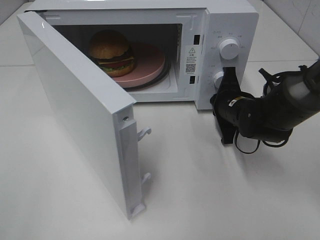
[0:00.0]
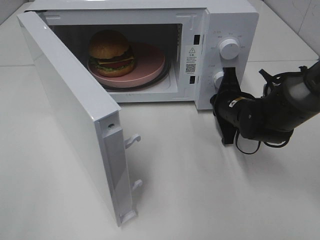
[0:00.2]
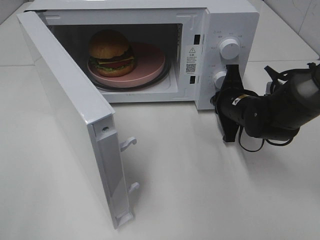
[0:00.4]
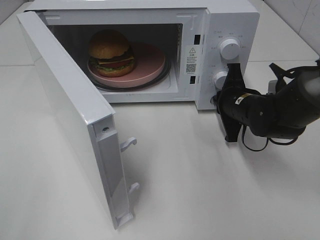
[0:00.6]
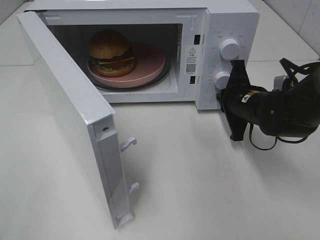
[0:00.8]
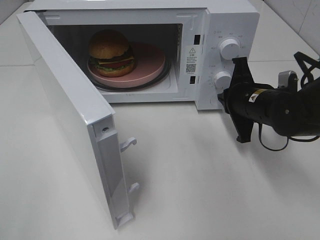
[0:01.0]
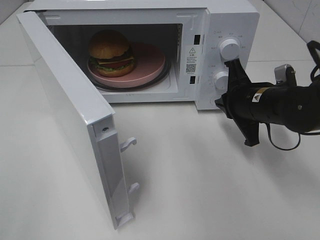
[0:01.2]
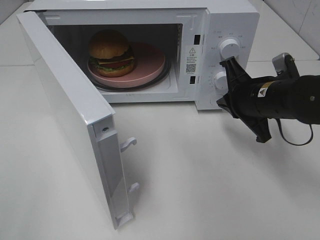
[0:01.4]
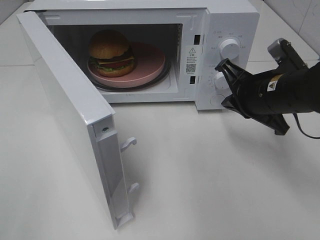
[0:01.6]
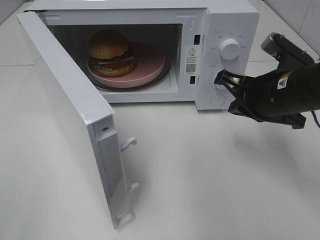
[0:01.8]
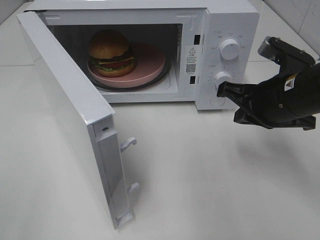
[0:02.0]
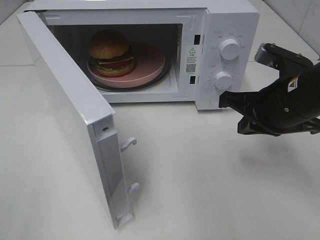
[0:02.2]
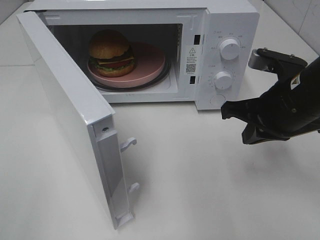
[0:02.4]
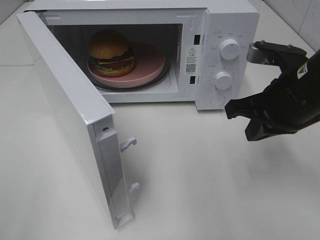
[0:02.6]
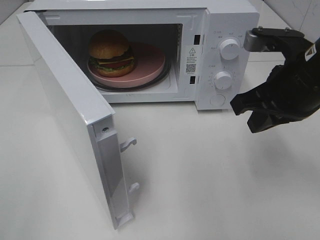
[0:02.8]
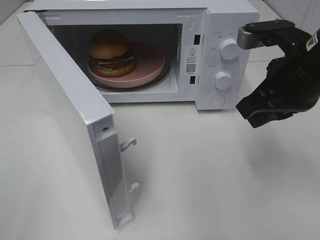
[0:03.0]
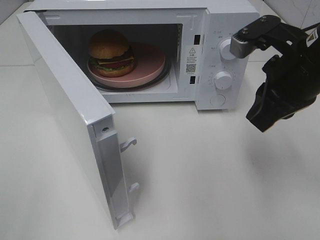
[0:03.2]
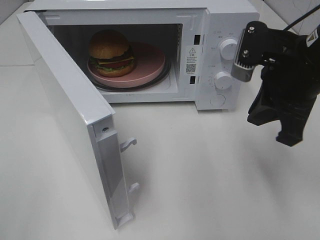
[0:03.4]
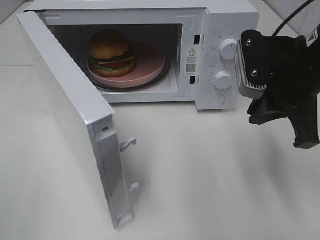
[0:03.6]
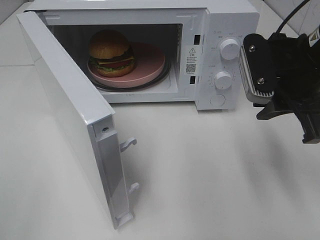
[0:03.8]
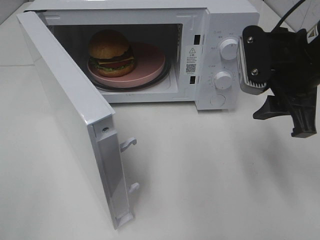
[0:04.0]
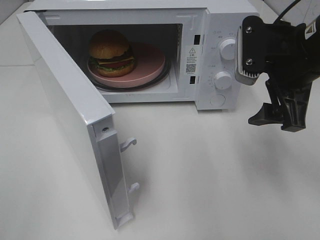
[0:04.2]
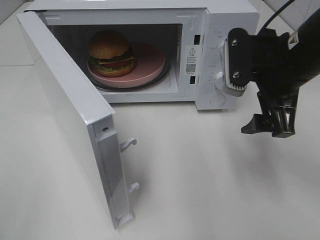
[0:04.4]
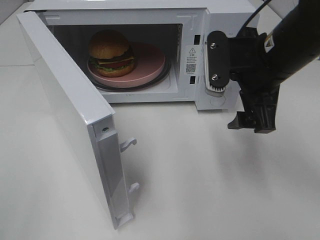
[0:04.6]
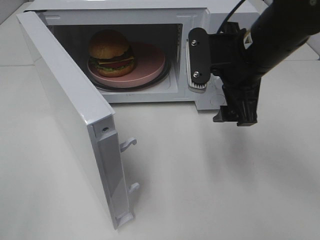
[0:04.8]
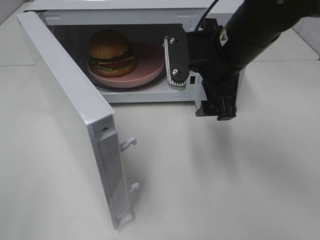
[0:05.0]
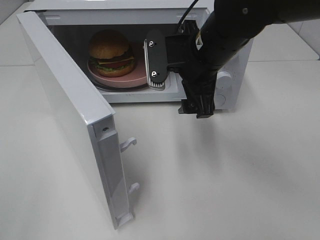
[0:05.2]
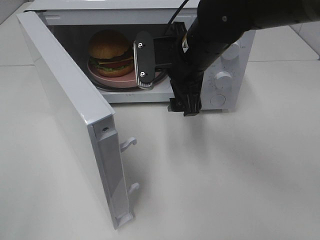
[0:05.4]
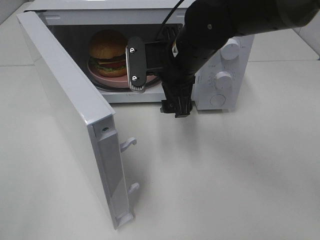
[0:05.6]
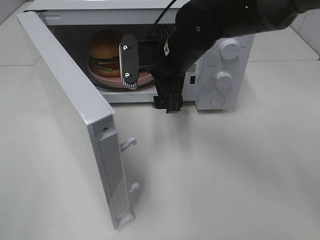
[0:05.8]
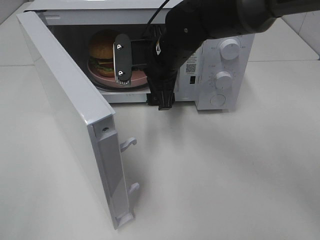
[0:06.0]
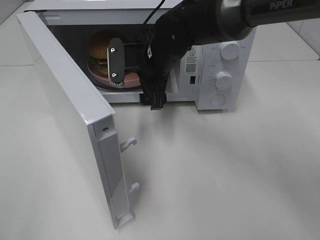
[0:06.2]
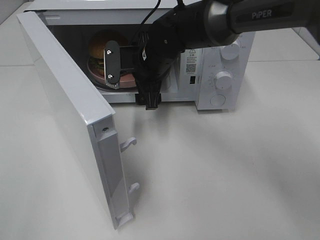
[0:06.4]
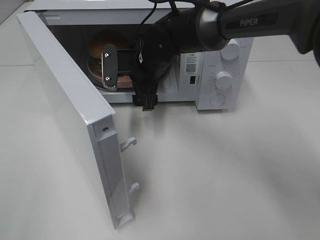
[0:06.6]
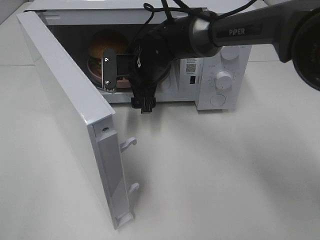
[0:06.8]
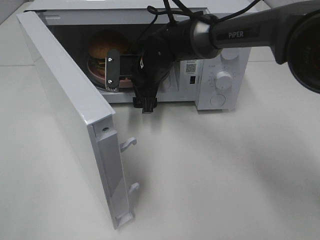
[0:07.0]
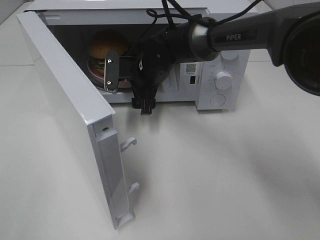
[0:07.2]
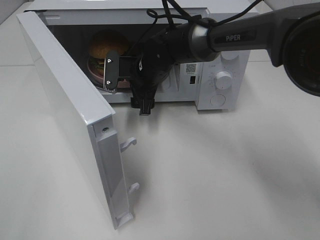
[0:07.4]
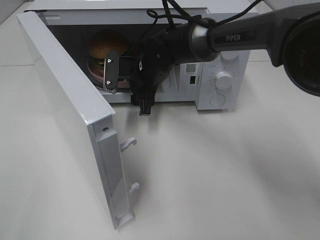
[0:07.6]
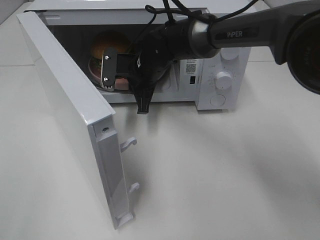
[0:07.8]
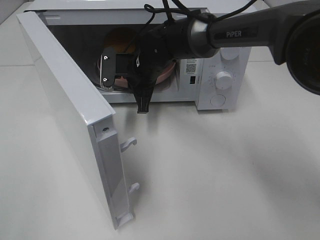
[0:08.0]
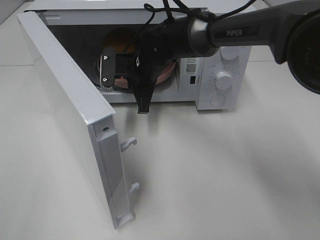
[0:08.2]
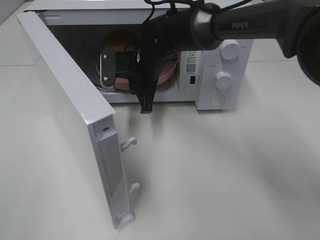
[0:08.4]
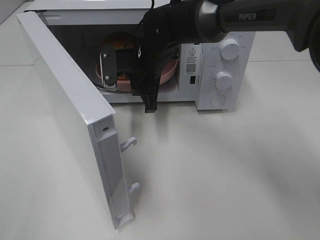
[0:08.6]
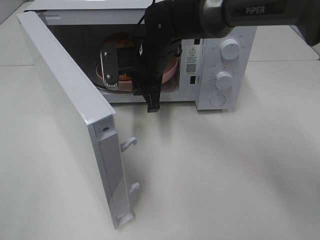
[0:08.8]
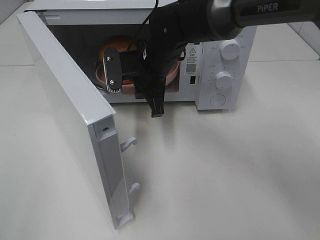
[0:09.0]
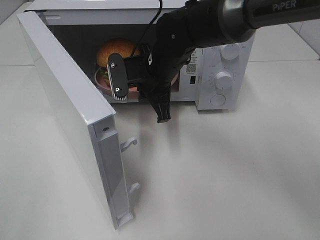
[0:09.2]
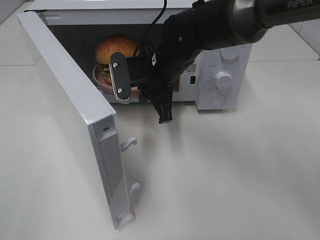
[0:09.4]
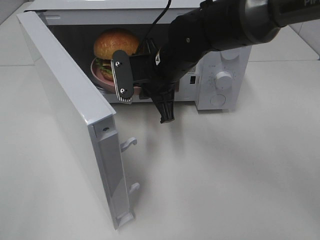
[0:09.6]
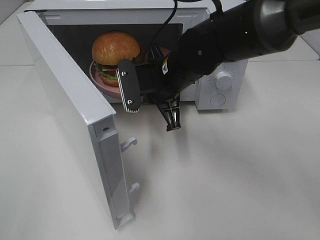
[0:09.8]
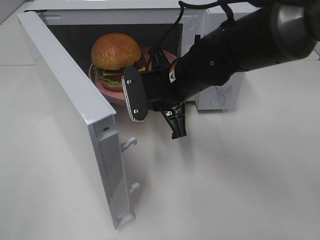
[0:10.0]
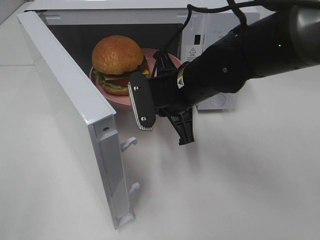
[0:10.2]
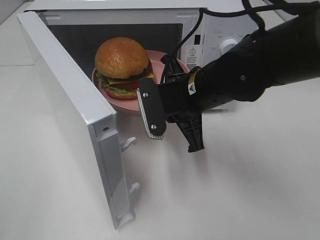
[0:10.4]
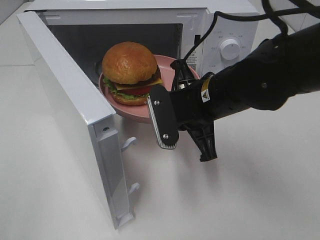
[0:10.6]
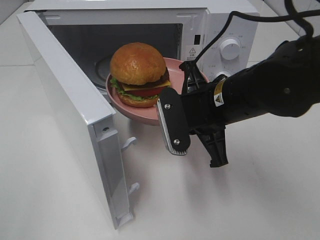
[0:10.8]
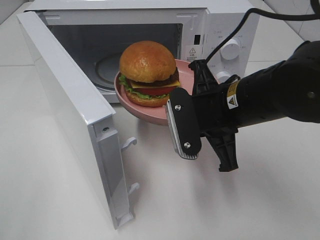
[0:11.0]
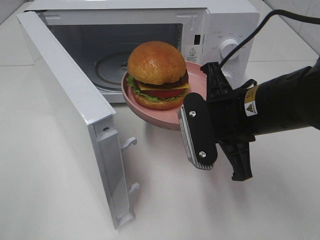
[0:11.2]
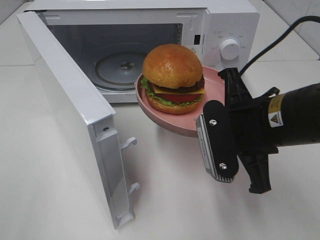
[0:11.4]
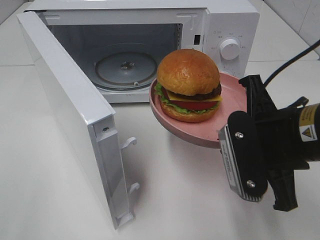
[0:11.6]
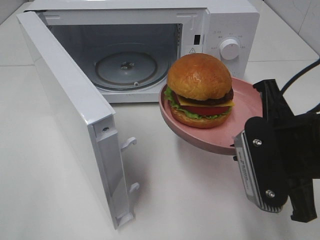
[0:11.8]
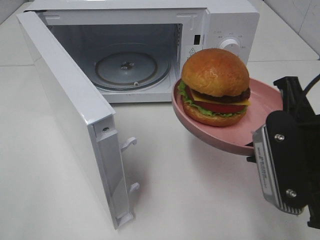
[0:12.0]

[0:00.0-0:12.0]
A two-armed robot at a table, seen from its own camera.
Task of the whole recording: Heat the burger.
Step, 0:01.0 to 0:07.8: Right hand: grab the plate with the hamburger.
0:00.0 to 0:01.6: The right gripper heads upward and backward, covering some 10 cm.
0:01.6 to 0:03.0: The right gripper travels upward by about 10 cm.
0:03.0 to 0:04.4: The right gripper opens.
0:04.4 to 0:06.0: The right gripper moves to the left and forward, roughly 20 cm.
0:06.0 to 0:07.6: The right gripper heads downward and forward, covering about 10 cm.
0:07.6 to 0:09.0: The right gripper moves about 5 cm, and closes.
0:09.0 to 0:10.4: The right gripper is displaced backward and to the right by some 10 cm.
0:10.4 to 0:12.0: The right gripper shifts approximately 20 cm backward and to the right.

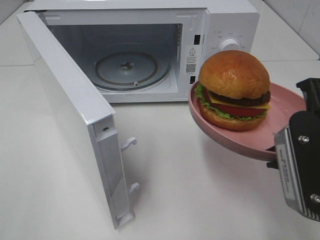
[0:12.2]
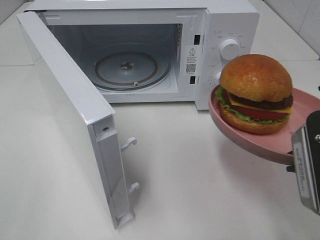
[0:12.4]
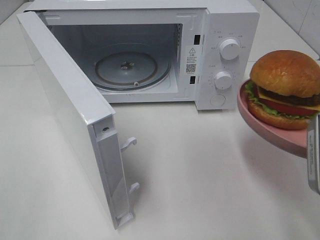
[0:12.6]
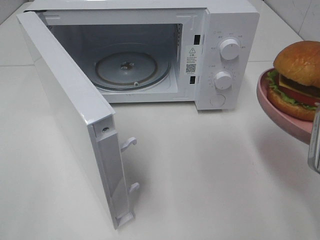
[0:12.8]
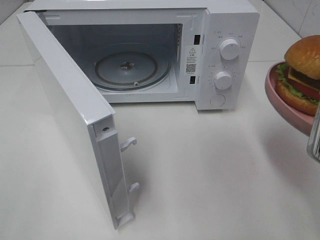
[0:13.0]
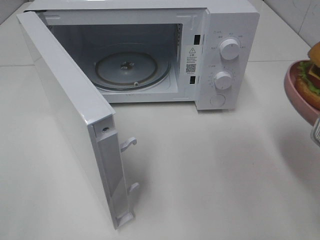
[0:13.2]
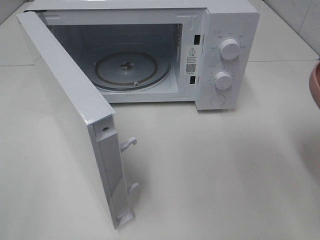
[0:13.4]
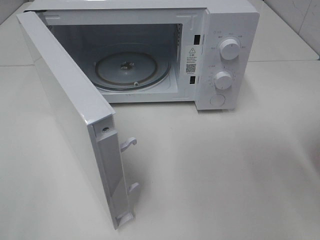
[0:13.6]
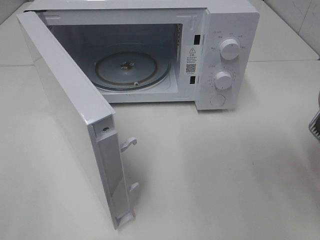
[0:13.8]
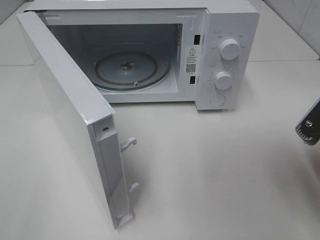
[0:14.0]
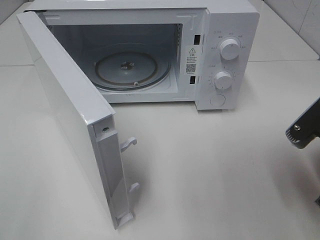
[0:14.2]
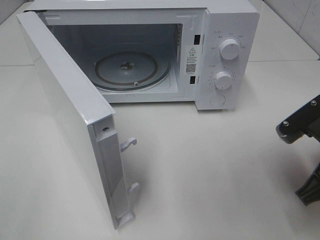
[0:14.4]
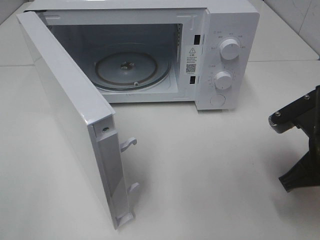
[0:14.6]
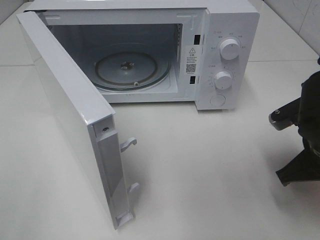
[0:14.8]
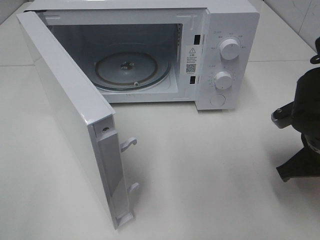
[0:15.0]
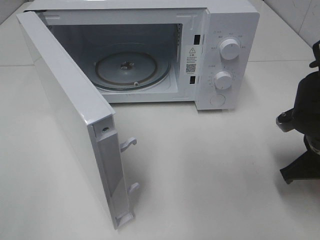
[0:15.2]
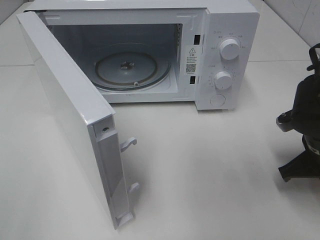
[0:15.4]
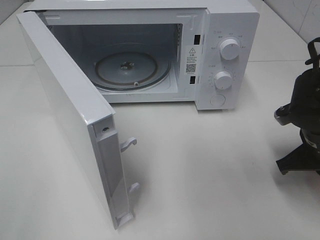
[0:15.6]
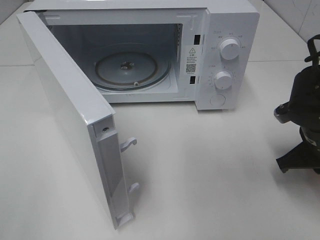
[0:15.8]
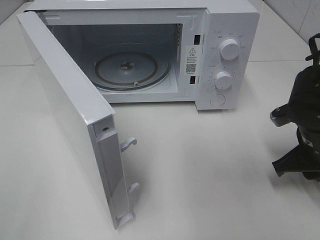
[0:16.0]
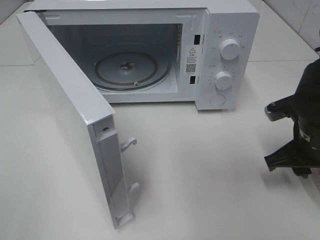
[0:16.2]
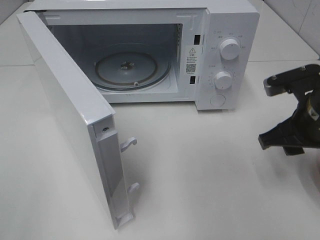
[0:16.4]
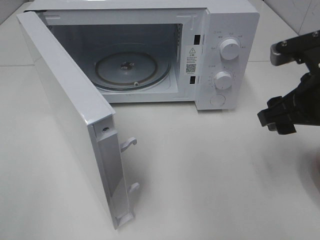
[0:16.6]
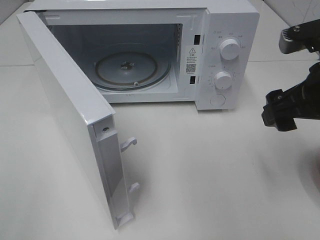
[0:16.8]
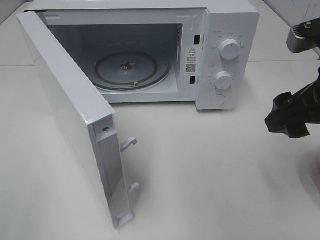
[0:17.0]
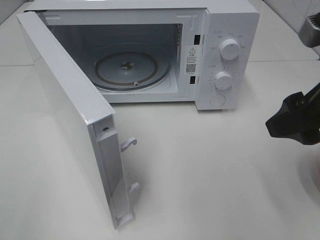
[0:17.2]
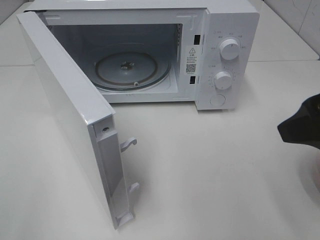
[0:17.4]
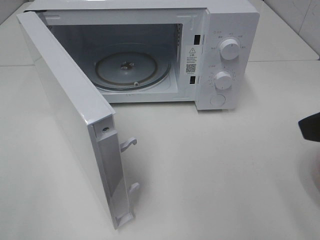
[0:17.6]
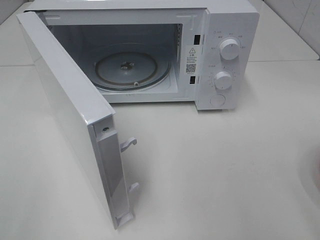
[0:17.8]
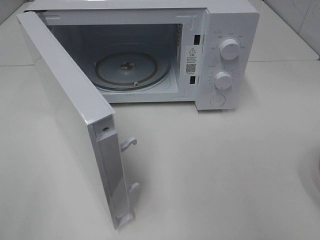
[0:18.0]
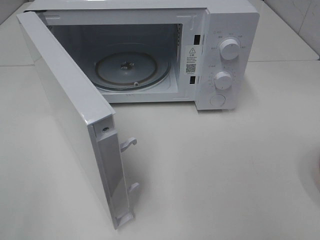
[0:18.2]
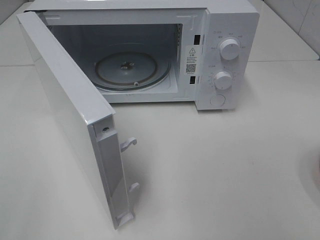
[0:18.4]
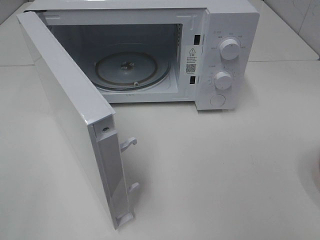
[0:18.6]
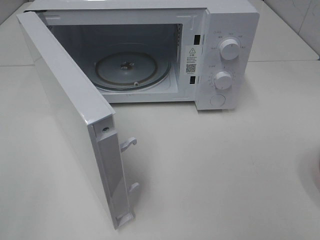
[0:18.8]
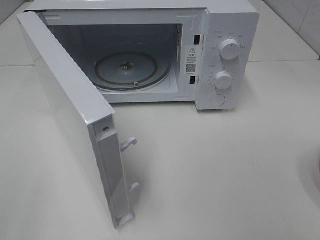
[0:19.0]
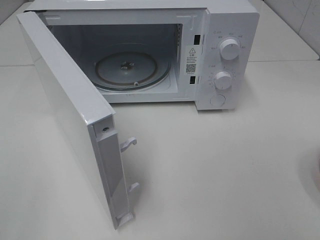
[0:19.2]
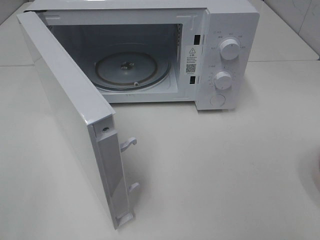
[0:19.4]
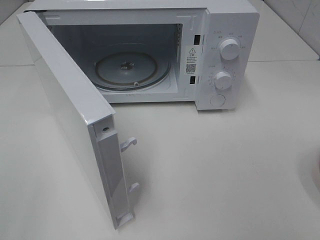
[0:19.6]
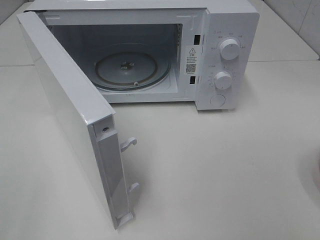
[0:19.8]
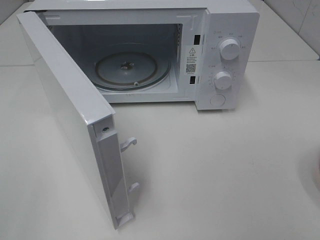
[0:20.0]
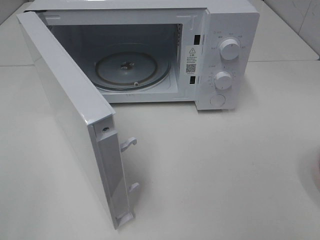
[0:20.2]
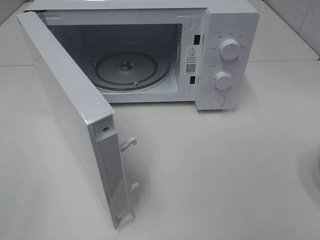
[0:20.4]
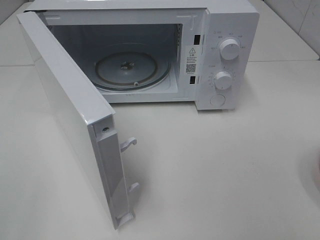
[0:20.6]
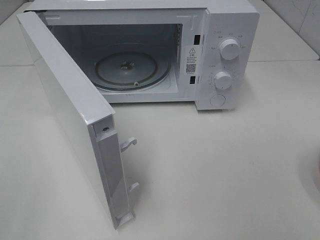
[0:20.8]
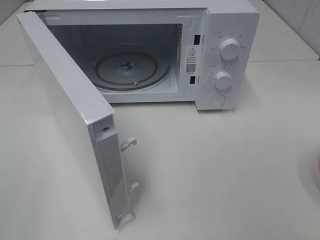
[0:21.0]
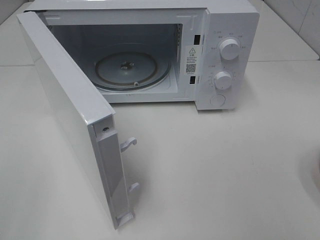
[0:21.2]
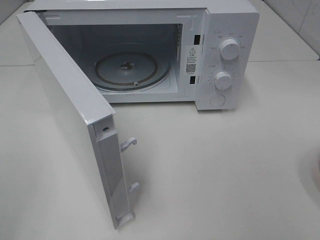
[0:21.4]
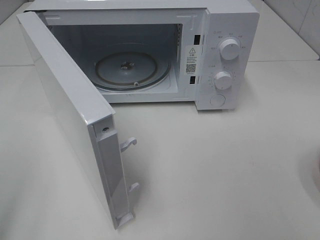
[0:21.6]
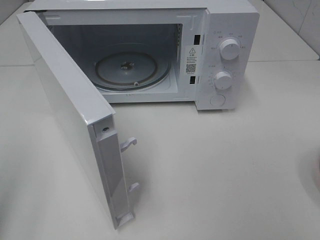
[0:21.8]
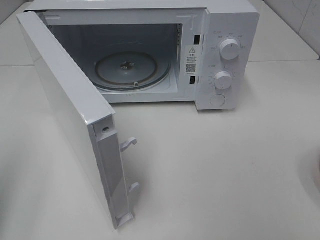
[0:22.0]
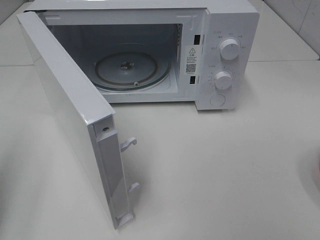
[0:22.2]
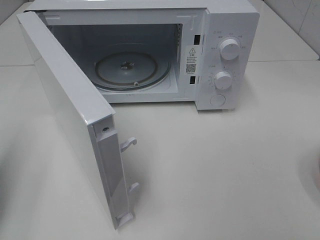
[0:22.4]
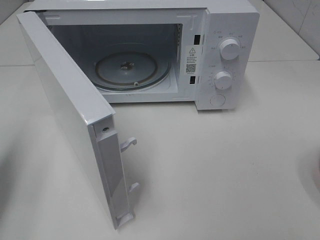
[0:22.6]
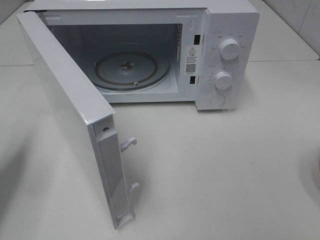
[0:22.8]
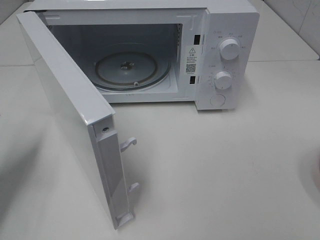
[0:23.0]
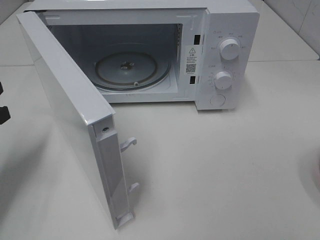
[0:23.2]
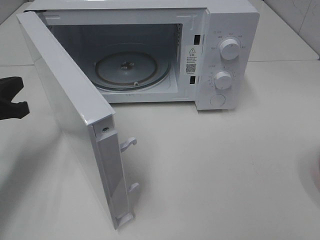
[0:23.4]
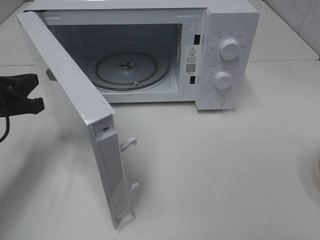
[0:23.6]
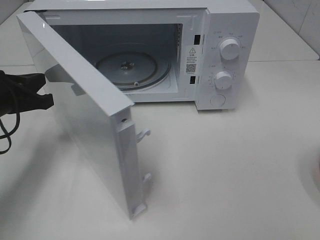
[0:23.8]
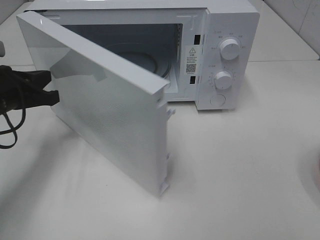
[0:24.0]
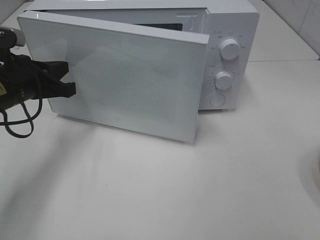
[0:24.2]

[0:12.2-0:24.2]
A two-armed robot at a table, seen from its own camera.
Task of the whole recording: Heat the burger.
Step, 0:12.2 to 0:15.8: Right hand: place the plate on the table.
0:13.8 to 0:15.2: The right gripper goes roughly 15 cm downward and forward.
0:15.2 to 0:16.6: The right gripper moves upward, some 10 cm, and opens up.
0:16.6 to 0:18.2: The right gripper is displaced backward and upward by roughly 25 cm.
0:21.2 to 0:22.6: The left gripper goes about 20 cm forward and downward, and closes its fingers.
0:22.6 to 0:24.2: The left gripper goes some 15 cm forward, to the right and downward.
